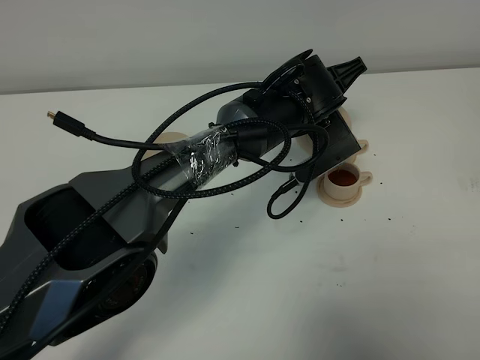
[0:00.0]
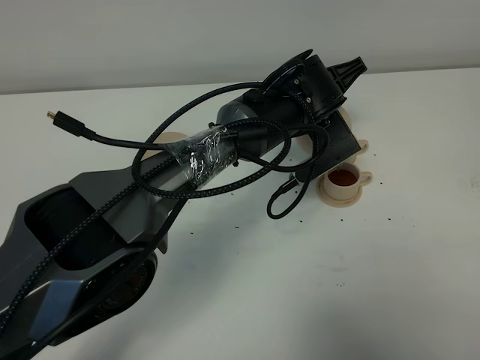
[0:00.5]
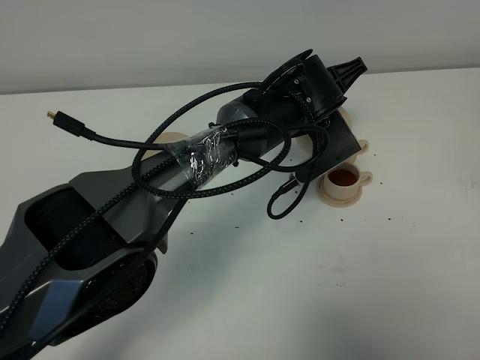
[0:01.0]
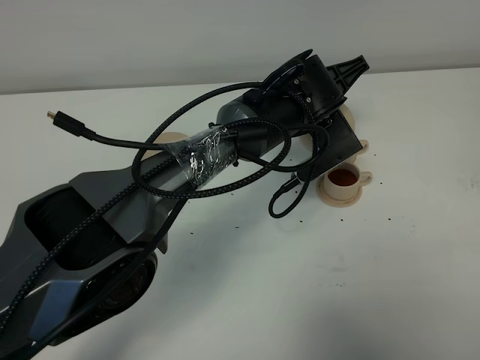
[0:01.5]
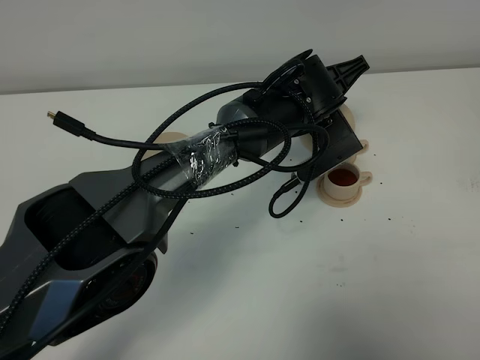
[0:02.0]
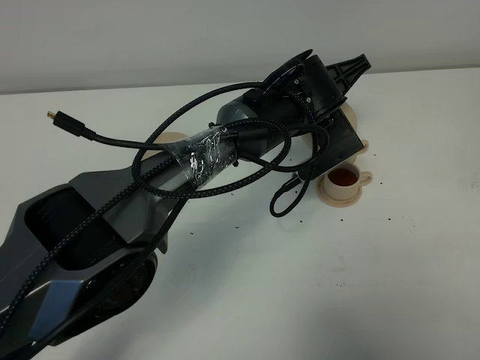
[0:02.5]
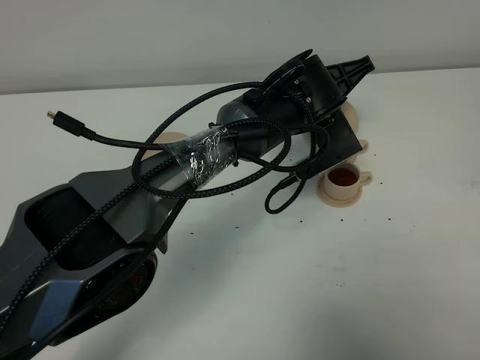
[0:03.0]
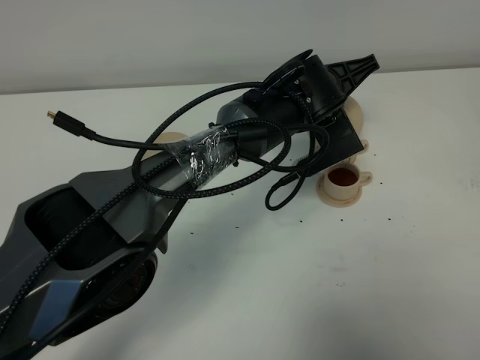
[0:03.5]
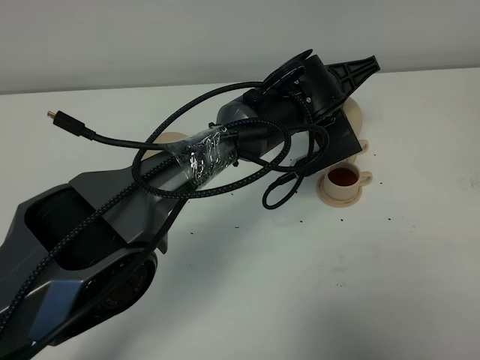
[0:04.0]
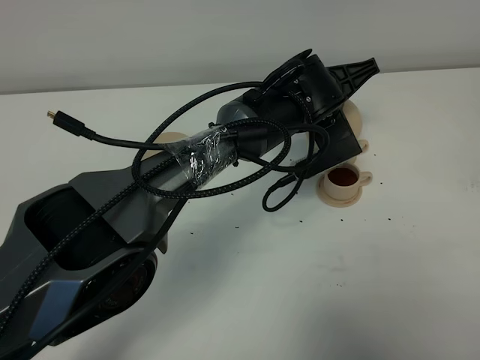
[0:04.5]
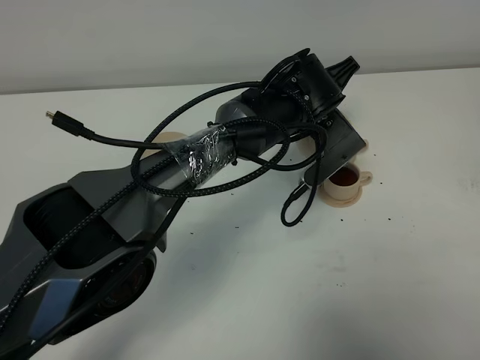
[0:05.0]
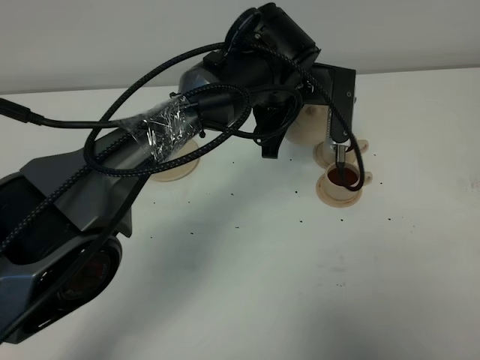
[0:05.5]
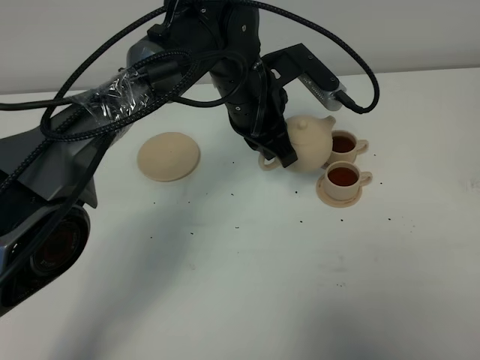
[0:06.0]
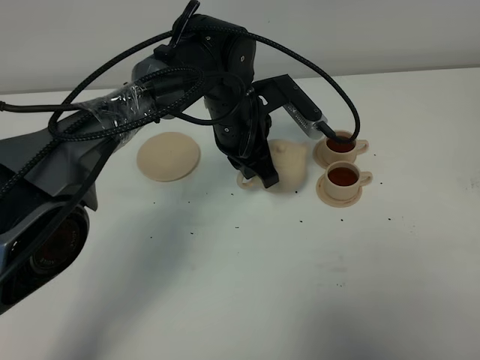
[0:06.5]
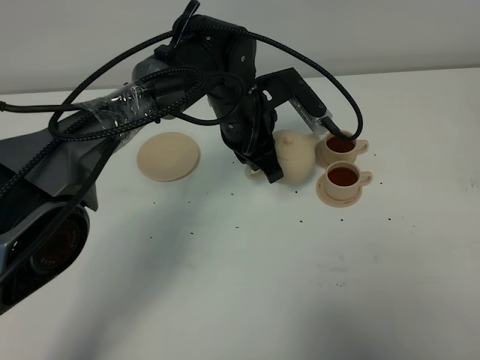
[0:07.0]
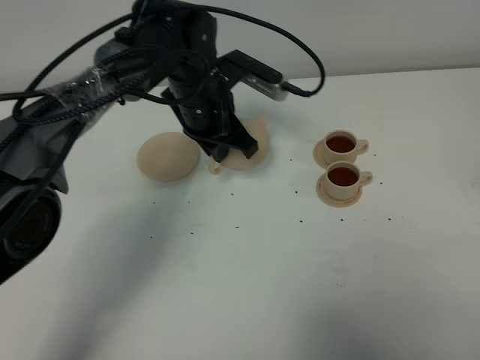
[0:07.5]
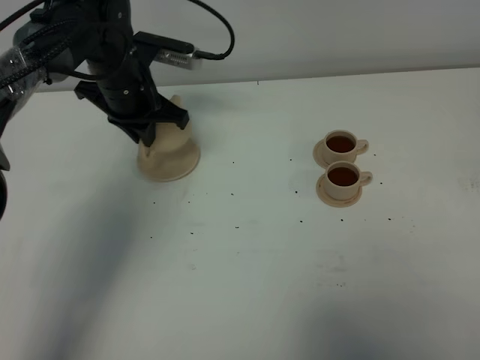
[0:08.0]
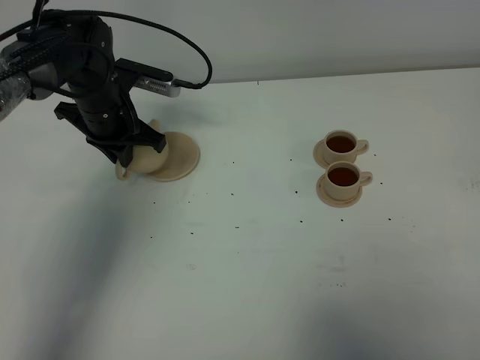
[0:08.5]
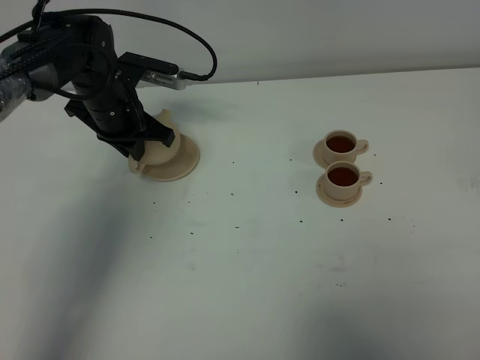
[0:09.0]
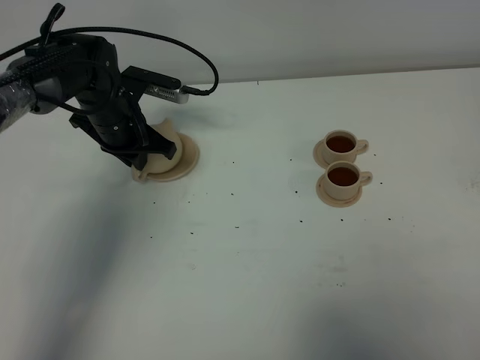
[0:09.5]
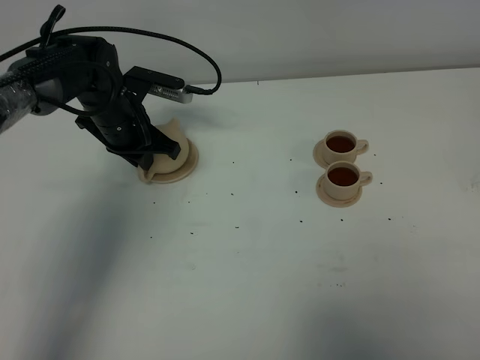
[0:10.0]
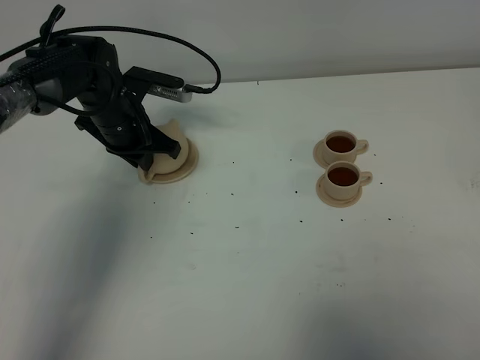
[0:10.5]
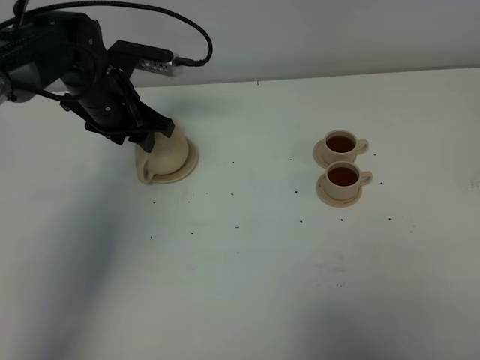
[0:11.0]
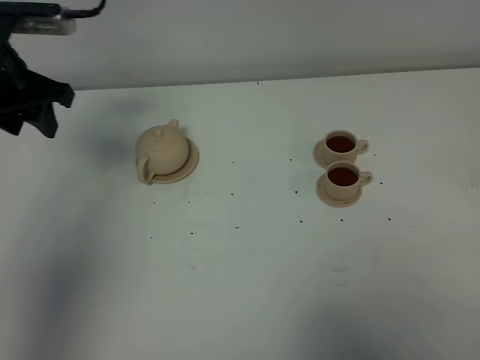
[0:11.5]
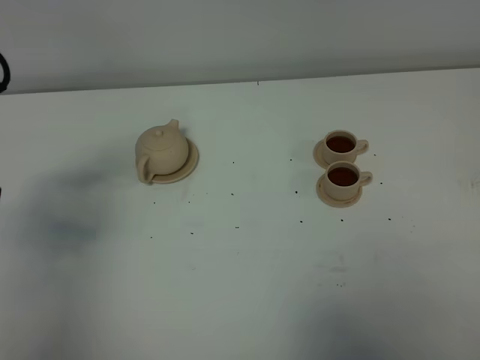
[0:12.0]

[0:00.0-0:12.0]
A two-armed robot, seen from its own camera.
Task of the whole recording: grasp the brown teapot and pour the tea into the two brown teacups one by one, put the brown teapot back in its original place.
Step, 0:00.0 to 0:05.0: Pour tea into the teacup with the left gripper.
0:00.0 to 0:02.0: Neither gripper changes place.
0:02.0 to 0:04.0: There are only small adjustments of the grippers.
0:04.0 to 0:06.0: The left gripper moves to the left, roughly 10 cm.
0:06.0 to 0:08.0: The left gripper travels to the left by about 15 cm.
0:08.0 to 0:10.0: The left gripper shifts by approximately 5 cm.
0:10.0 to 0:12.0: The left gripper is displaced backward, upward and to the left by some 30 cm, and opens up.

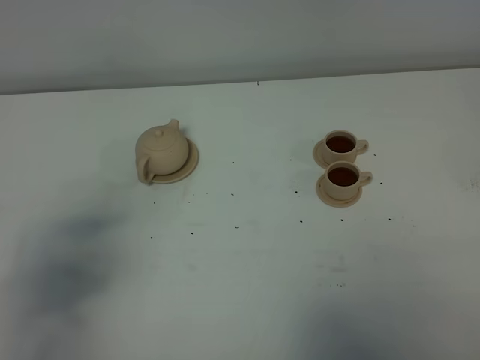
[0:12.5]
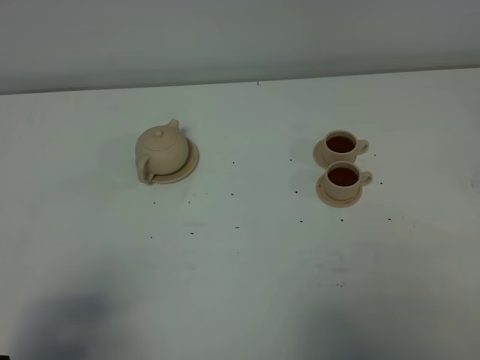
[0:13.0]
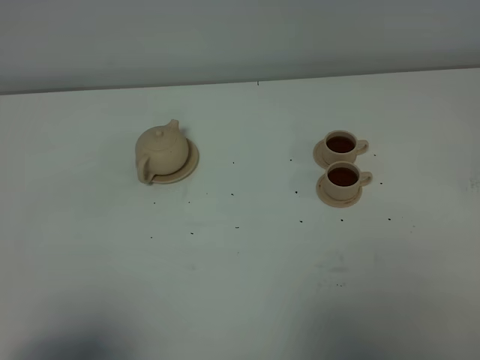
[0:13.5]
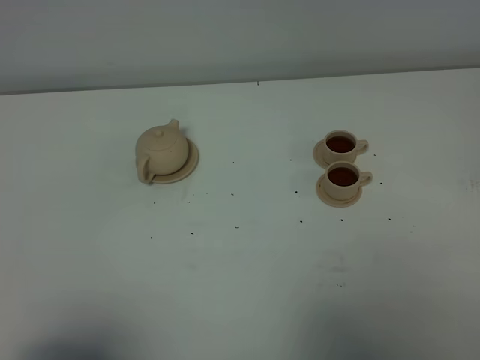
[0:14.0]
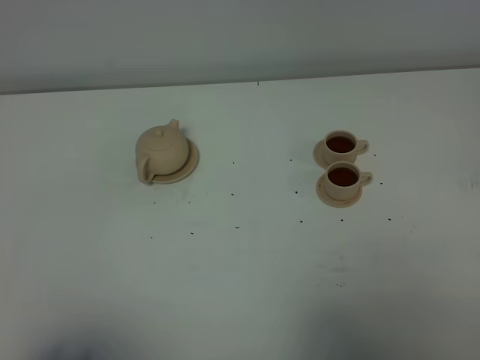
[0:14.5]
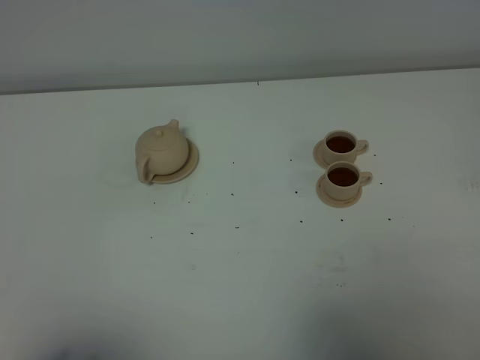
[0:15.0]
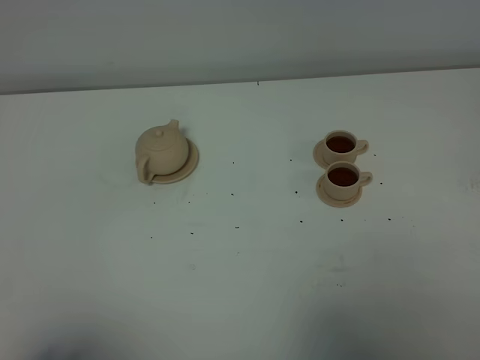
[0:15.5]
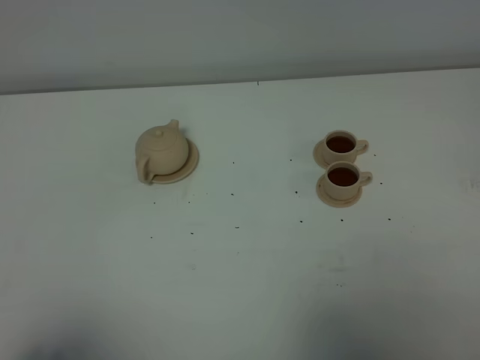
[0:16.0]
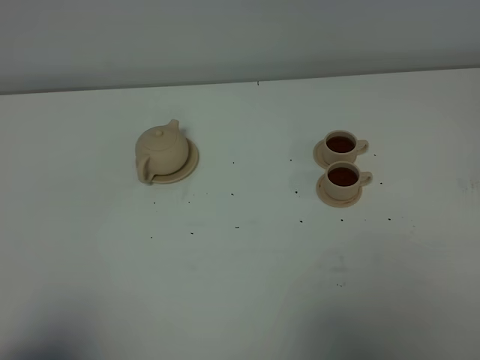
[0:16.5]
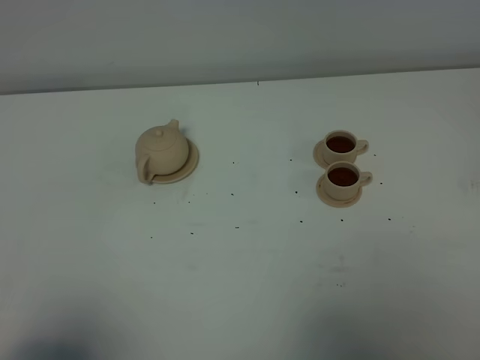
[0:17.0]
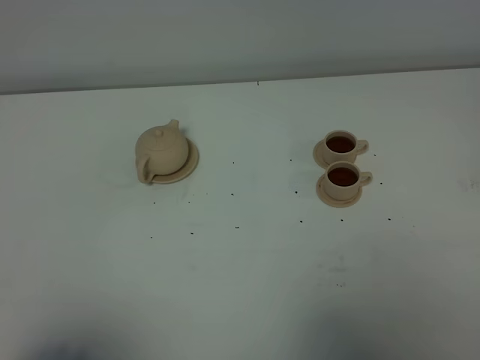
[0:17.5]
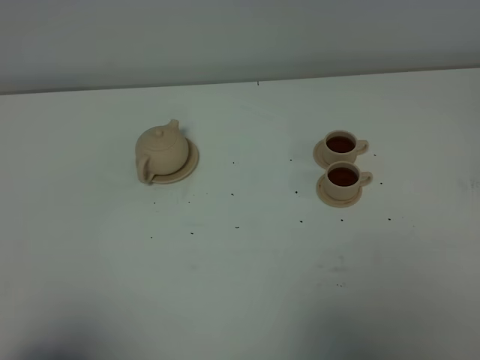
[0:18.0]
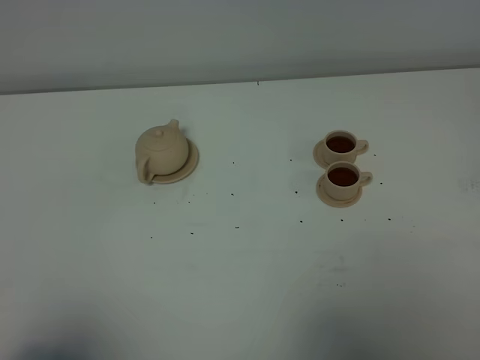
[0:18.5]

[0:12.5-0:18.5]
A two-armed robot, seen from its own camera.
Task of the whole recording: grasp the brown teapot and pour the tea into the two brown teacups one by one, put the brown teapot back in its original place.
0:12.5 to 0:14.5: The left gripper shifts roughly 15 cm backward.
